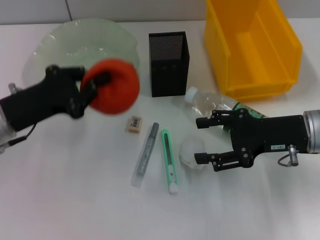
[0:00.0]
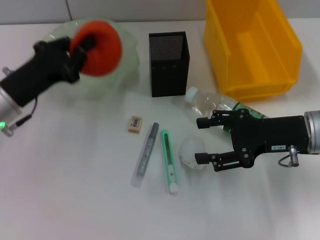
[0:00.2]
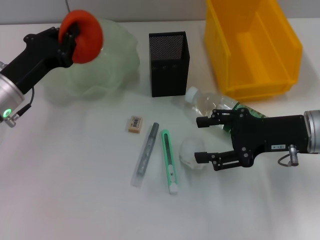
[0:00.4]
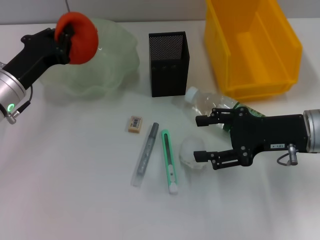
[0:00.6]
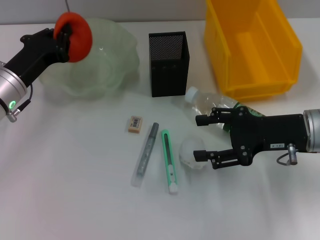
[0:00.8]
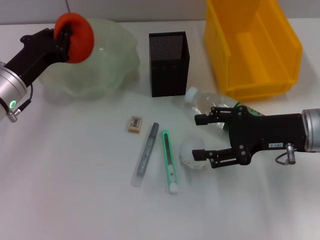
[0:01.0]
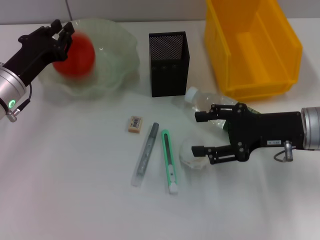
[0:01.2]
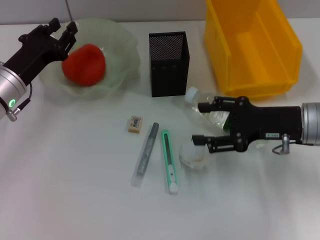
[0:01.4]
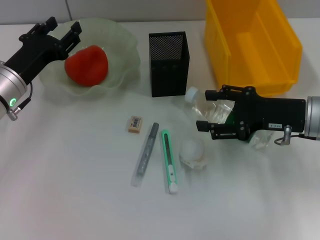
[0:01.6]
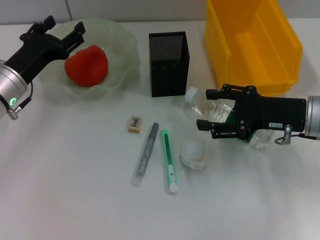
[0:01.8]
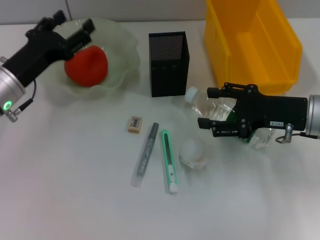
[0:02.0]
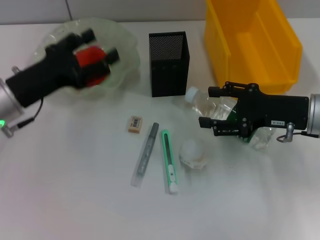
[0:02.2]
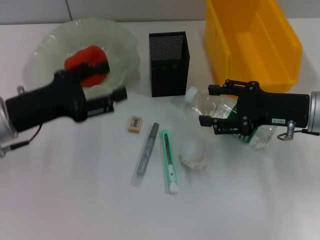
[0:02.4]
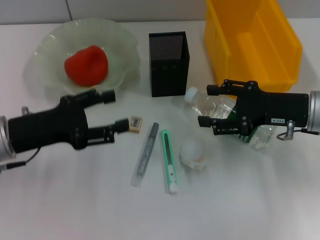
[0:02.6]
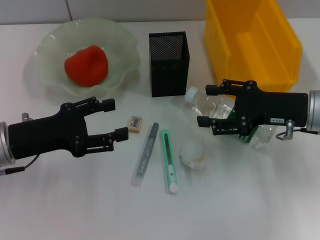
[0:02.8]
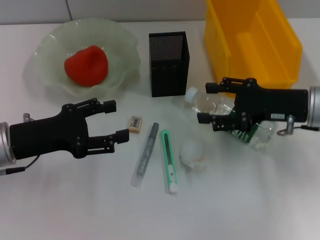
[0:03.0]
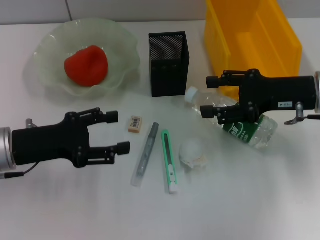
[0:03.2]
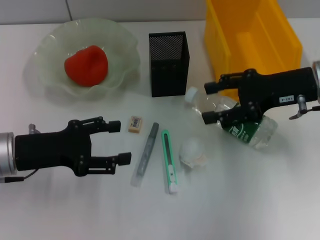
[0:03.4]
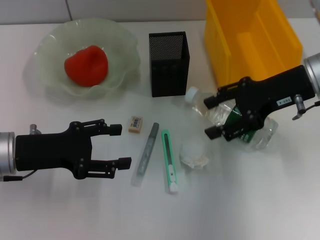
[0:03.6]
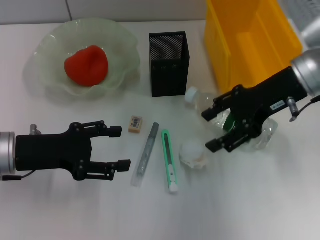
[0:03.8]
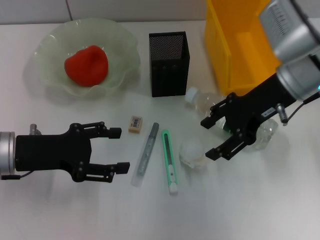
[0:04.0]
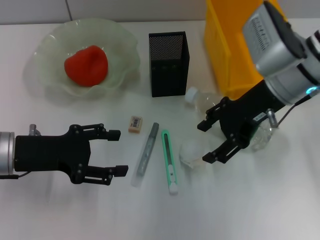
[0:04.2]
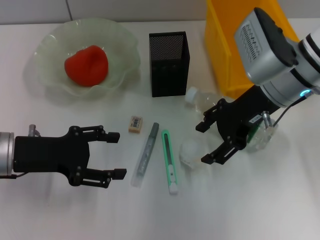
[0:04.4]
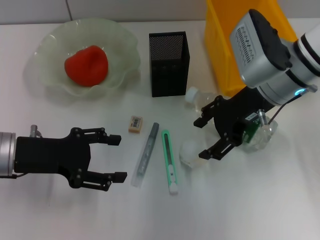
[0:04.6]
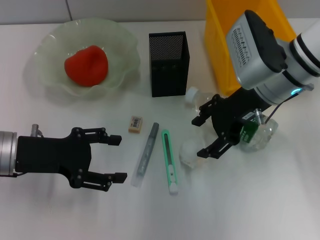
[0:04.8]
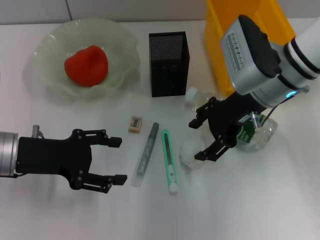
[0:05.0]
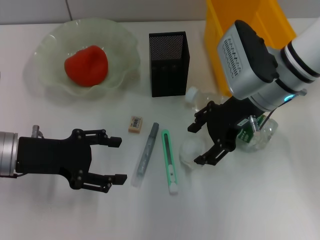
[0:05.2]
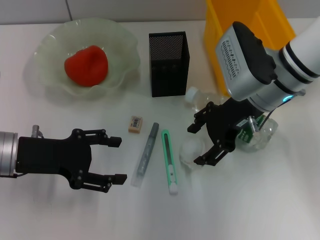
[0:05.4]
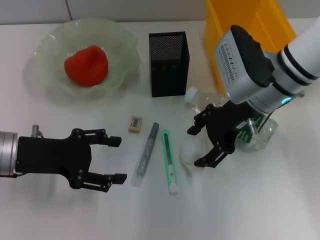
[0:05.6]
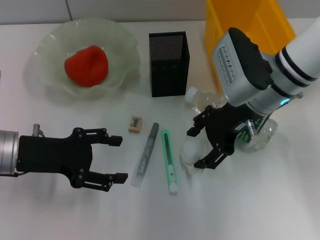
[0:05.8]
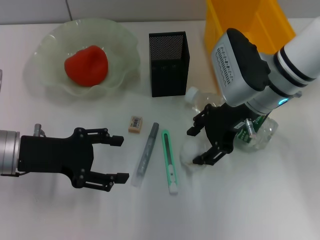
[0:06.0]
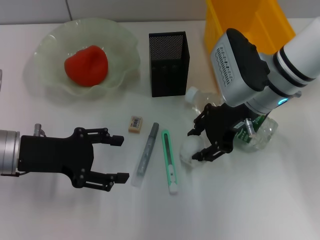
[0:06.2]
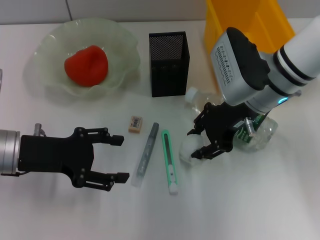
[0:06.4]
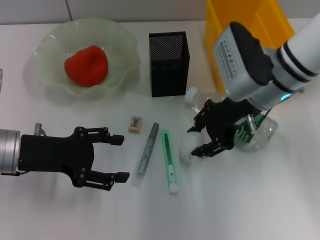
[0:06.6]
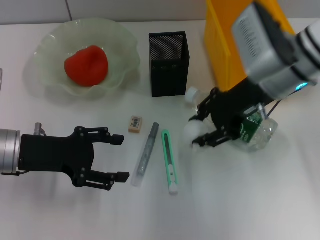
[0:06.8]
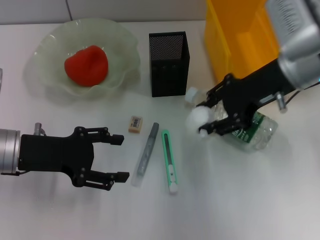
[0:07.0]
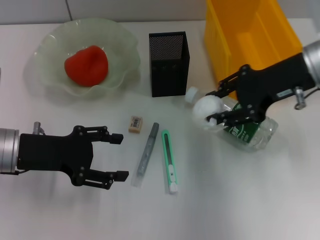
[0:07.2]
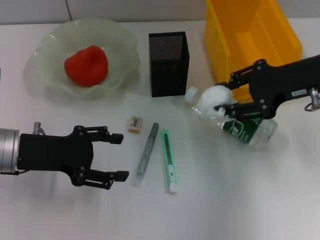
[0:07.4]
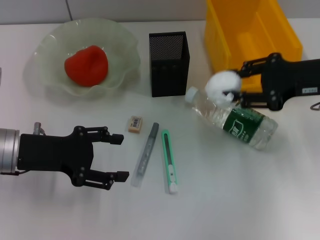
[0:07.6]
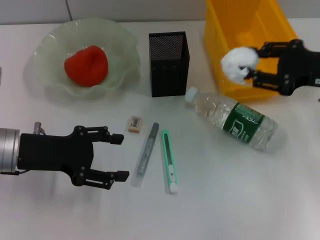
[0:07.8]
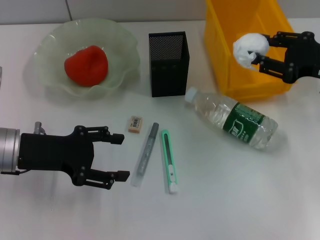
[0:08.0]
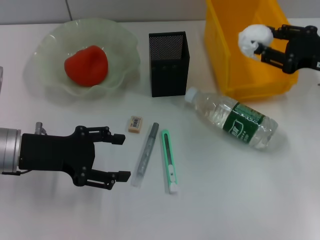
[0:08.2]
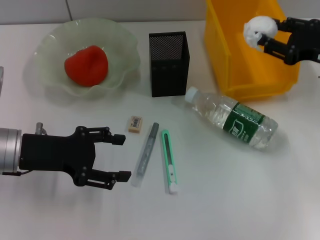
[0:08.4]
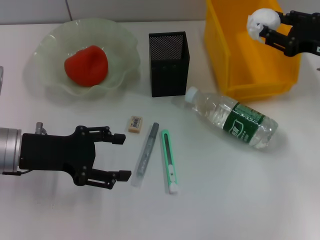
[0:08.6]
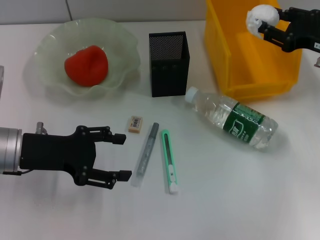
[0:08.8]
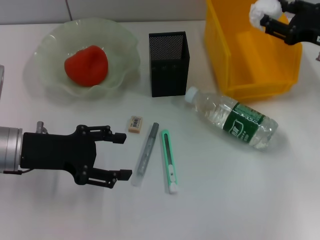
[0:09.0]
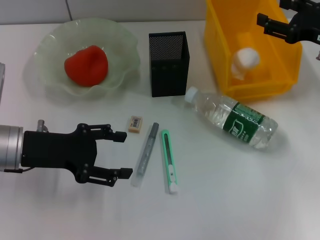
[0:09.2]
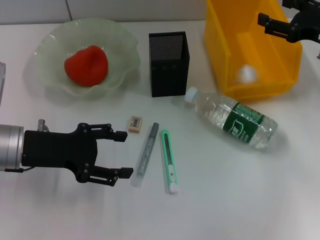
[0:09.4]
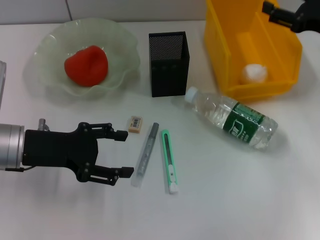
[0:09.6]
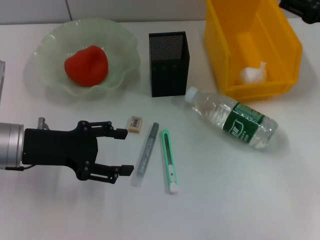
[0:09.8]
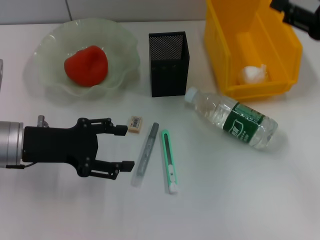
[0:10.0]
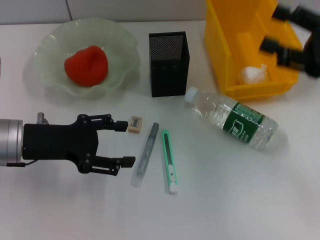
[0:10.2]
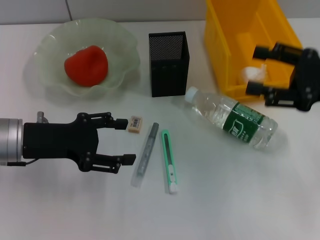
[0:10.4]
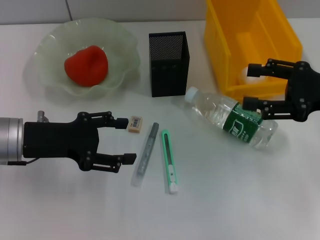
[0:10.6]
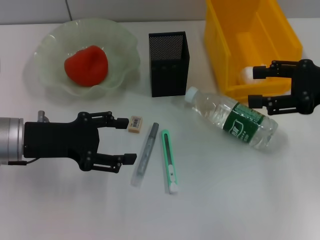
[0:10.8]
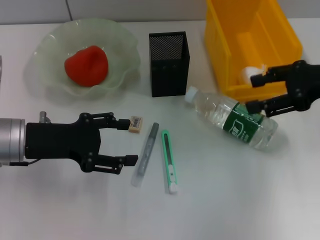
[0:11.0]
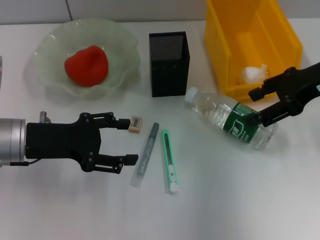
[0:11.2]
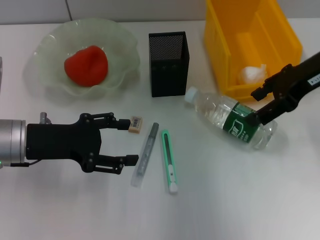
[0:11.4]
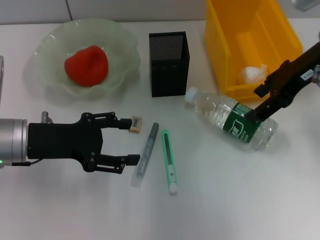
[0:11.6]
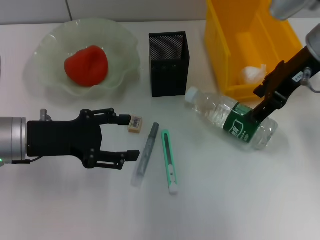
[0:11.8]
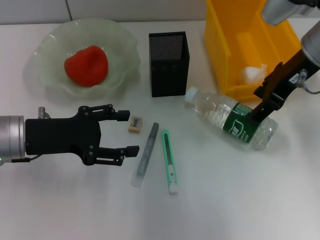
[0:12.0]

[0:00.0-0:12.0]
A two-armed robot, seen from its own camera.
Step, 0:00.0 to 0:01.4: Place the orange into the fruit bowl with the left hand.
Step, 0:01.6 to 0:06.4: Grab the paper ball with the right hand.
Step, 0:06.8 to 0:09.4: Place the paper ball into the trash can with the right hand.
0:00.0 to 0:01.6: The left gripper shifts about 5 cm forward, and opens up.
0:01.6 to 0:03.0: The left gripper heads backward, covering some 10 cm, and opens its fingers.
0:03.0 to 0:04.4: The right gripper heads to the left, covering about 10 cm.
0:04.4 to 0:06.0: The grippers move only a little.
0:06.0 to 0:07.6: The right gripper is displaced to the right by some 15 cm.
0:07.6 to 0:09.0: The right gripper shifts by roughly 5 cm.
0:09.0 to 0:10.4: The right gripper is displaced backward by roughly 5 cm.
0:10.4 to 0:12.0: The right gripper shifts some 15 cm to the left, forward and upward.

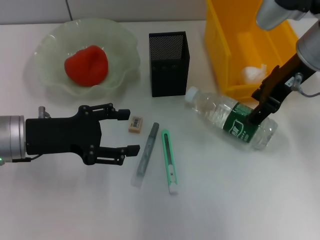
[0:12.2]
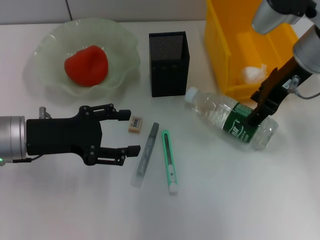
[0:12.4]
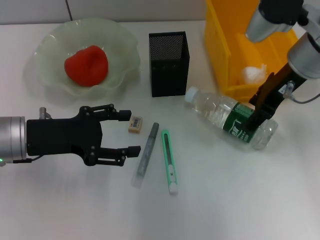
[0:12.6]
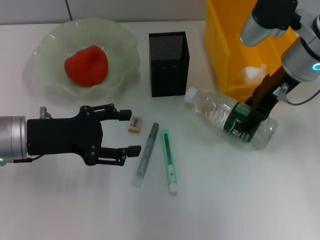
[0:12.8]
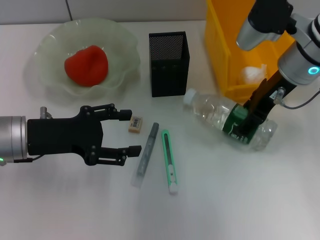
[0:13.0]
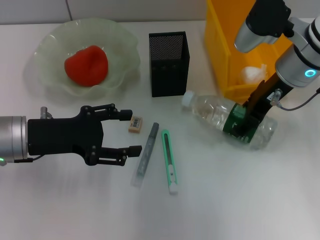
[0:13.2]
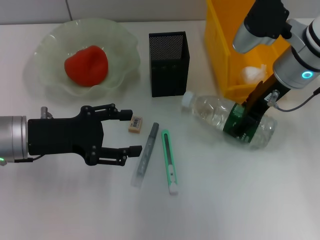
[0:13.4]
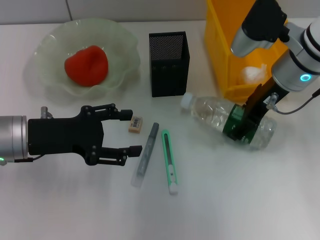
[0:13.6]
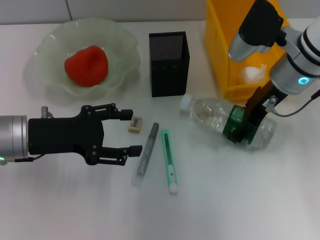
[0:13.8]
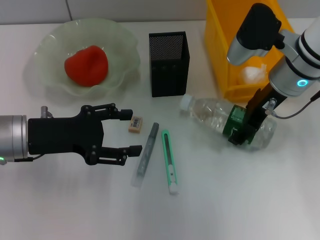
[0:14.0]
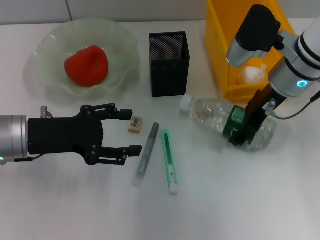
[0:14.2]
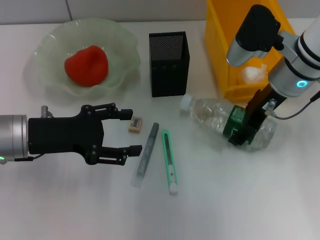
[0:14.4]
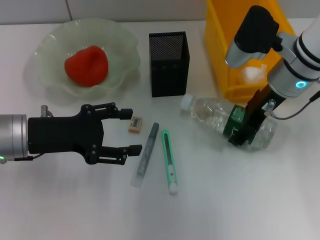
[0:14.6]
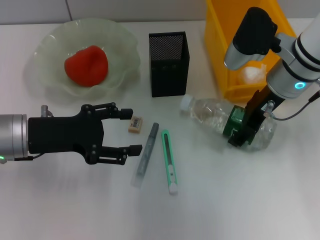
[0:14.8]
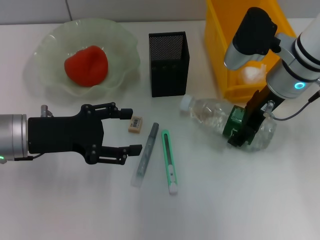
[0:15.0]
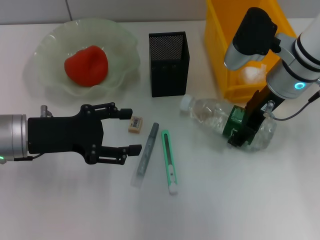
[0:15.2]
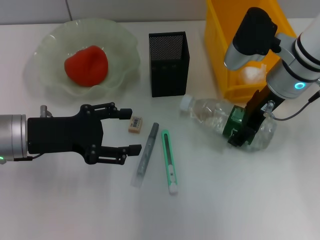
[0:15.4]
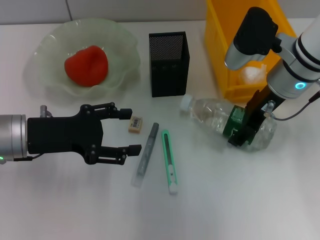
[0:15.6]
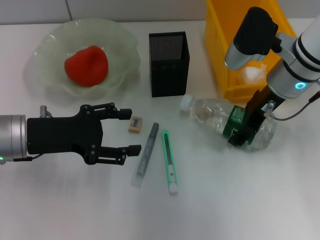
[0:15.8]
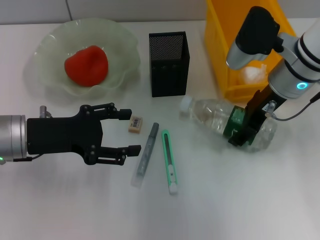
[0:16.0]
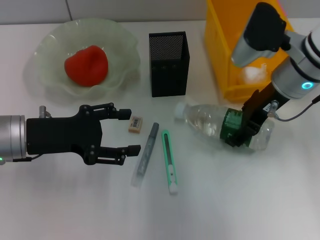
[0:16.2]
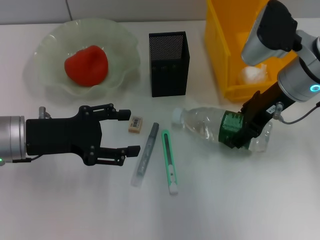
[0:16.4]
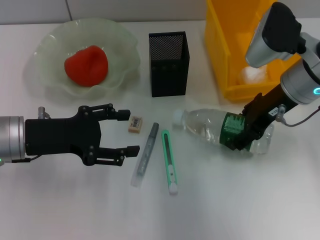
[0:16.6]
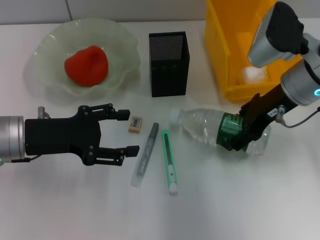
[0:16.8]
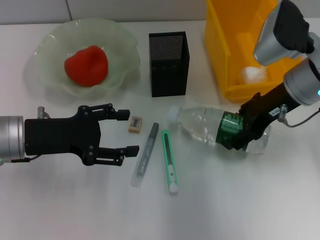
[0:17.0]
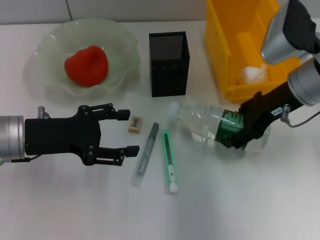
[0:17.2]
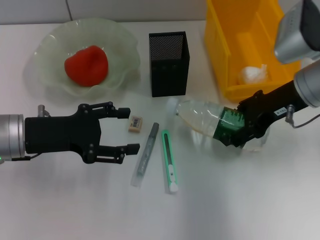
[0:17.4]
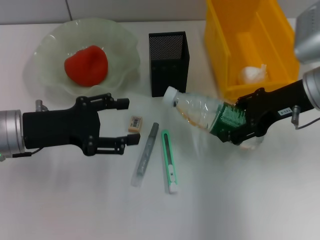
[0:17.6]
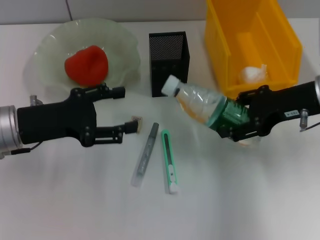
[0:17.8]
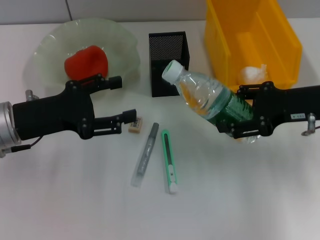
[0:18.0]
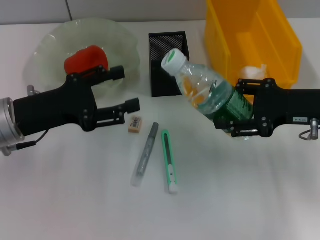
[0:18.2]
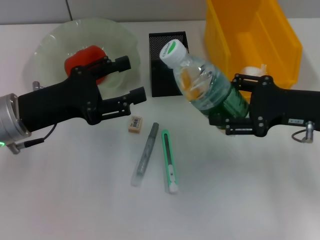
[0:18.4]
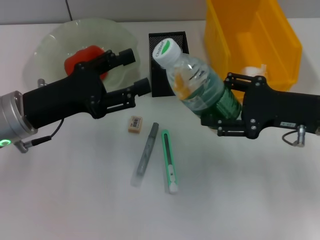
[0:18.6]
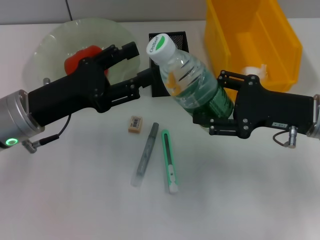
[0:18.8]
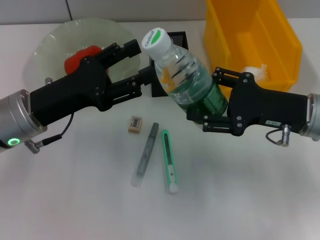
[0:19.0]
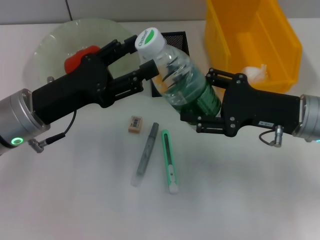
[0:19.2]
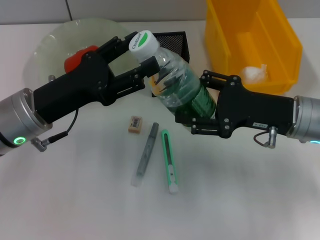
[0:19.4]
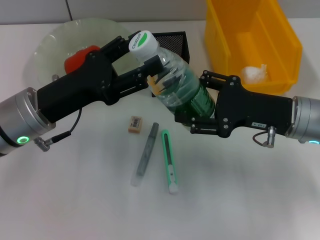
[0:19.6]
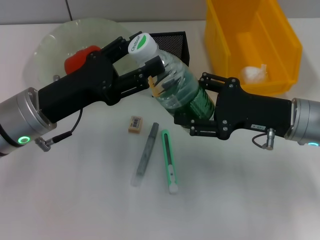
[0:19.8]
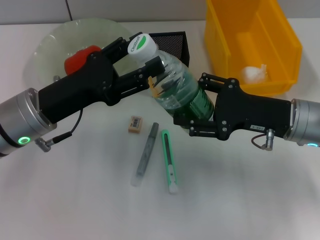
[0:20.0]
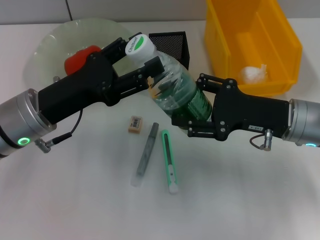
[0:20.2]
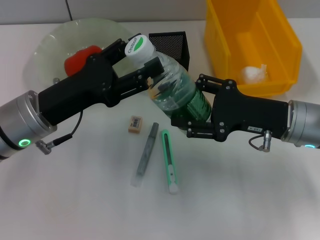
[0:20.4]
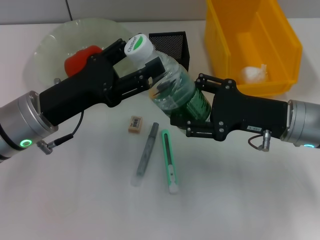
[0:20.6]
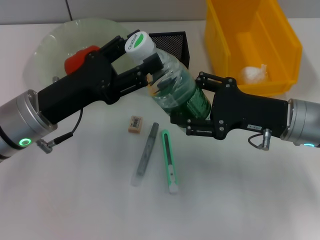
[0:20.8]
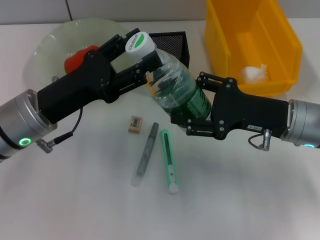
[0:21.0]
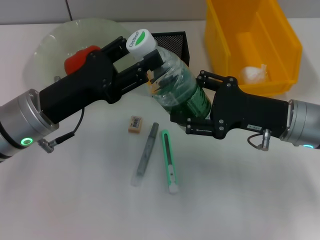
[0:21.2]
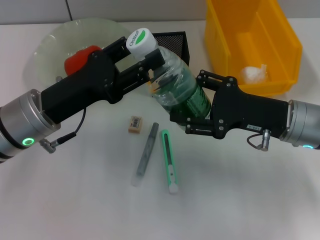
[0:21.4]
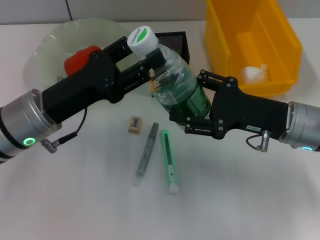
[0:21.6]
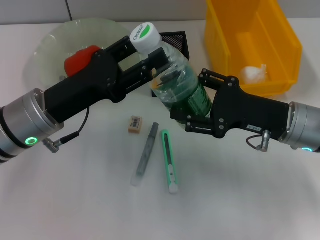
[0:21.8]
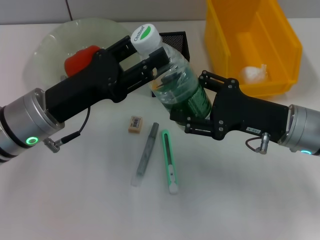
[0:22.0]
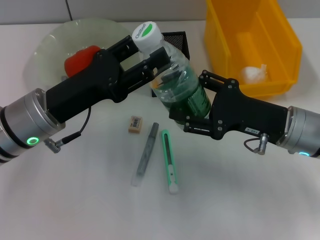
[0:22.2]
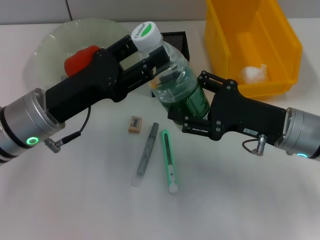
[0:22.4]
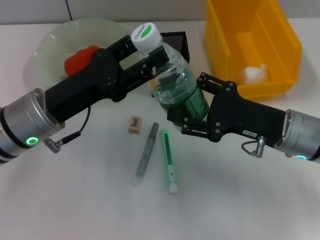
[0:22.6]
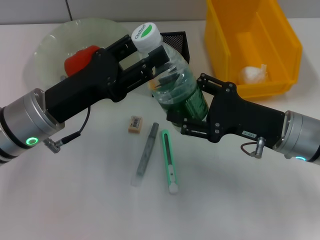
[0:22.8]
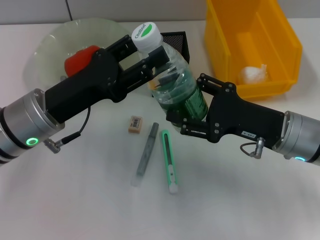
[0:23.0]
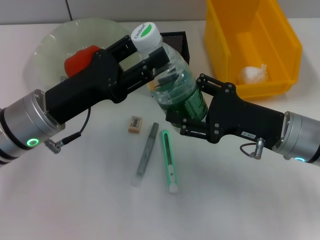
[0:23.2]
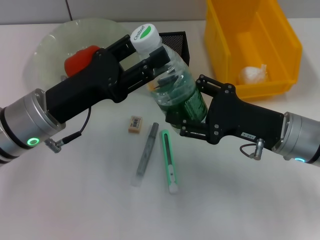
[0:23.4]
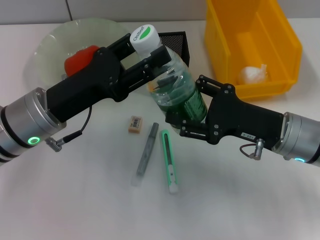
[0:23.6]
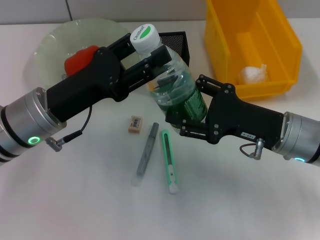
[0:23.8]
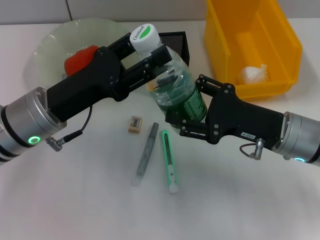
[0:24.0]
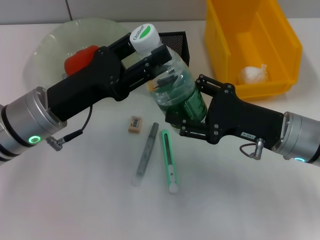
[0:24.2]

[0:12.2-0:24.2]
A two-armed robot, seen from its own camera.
Step, 0:12.2 to 0:16.2: Grab the water bottle with the right hand.
0:12.2 to 0:13.8: The right gripper heads downward, covering about 5 cm.
0:13.8 to 0:15.2: Both grippers stay put.
0:15.2 to 0:16.6: The grippers make only small movements.
0:16.6 to 0:18.2: The right gripper moves to the right and backward, approximately 10 cm.
0:18.2 to 0:19.8: The right gripper travels to the left by roughly 5 cm.
0:19.8 to 0:21.2: Both grippers stay put.
0:21.2 to 0:22.6: The grippers make only small movements.
0:22.6 to 0:24.2: Both grippers stay about where they are.
